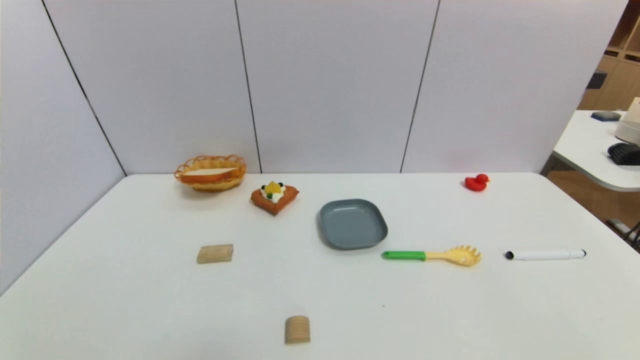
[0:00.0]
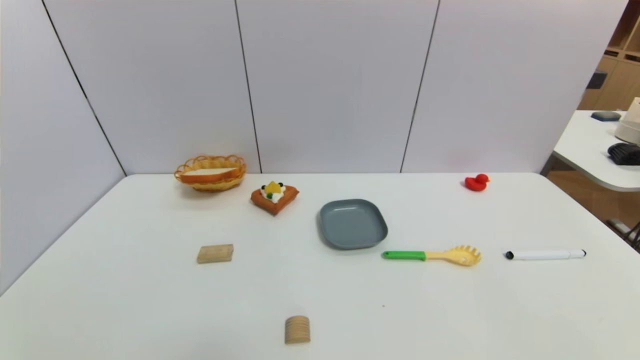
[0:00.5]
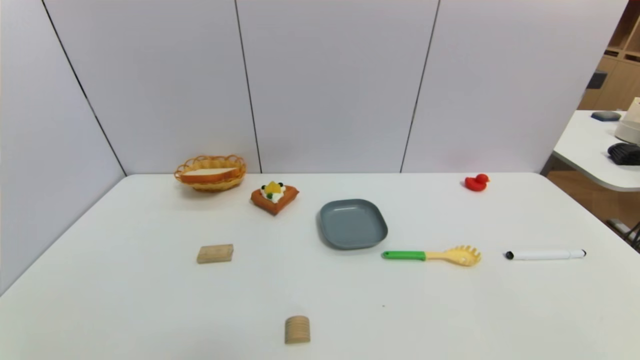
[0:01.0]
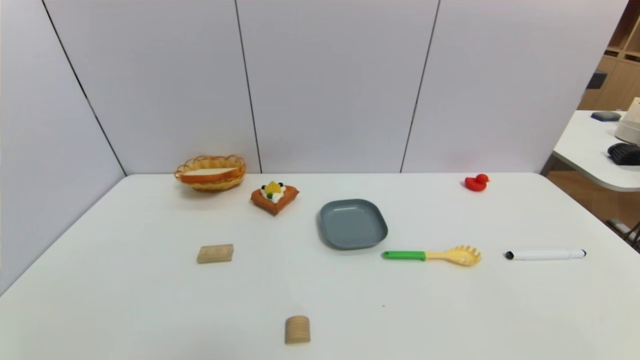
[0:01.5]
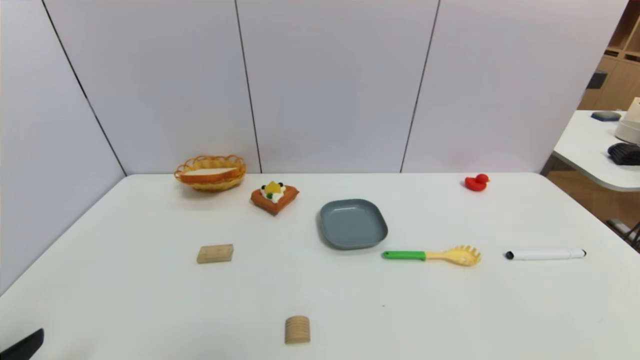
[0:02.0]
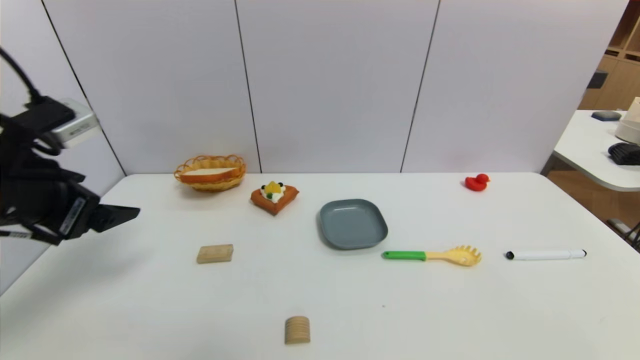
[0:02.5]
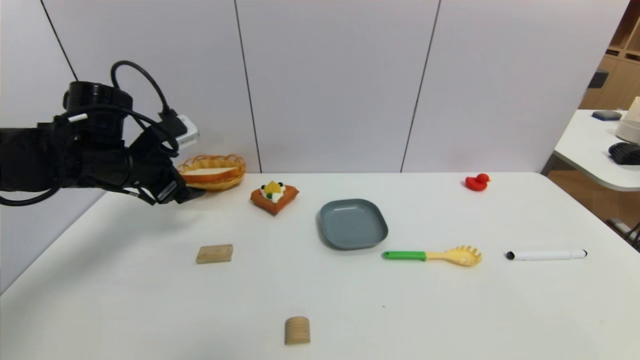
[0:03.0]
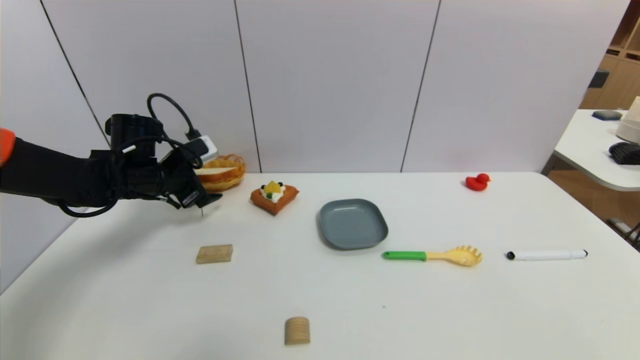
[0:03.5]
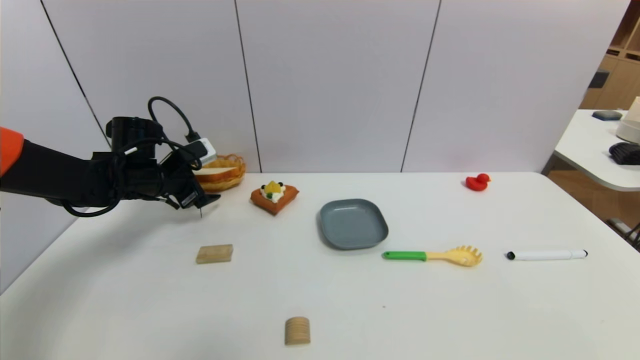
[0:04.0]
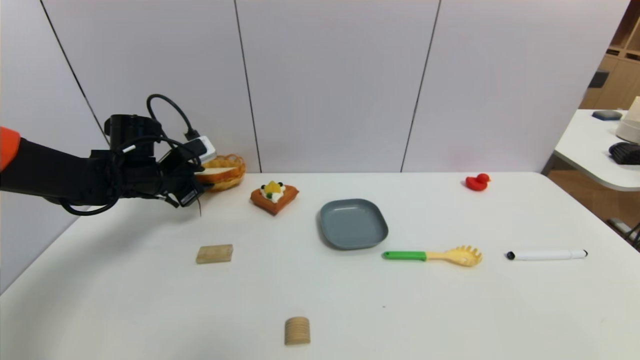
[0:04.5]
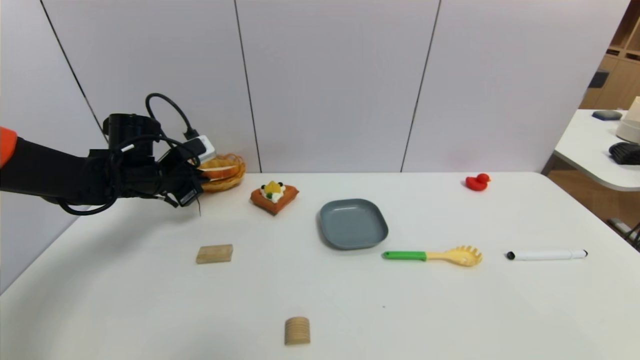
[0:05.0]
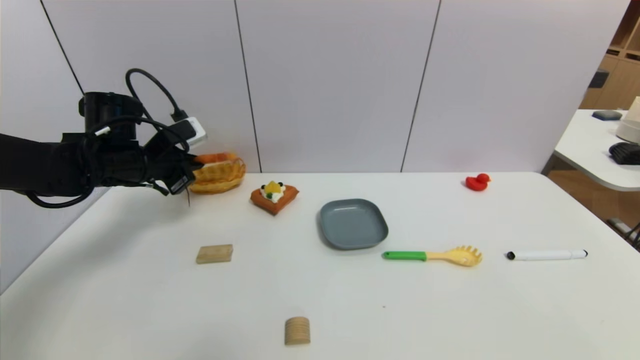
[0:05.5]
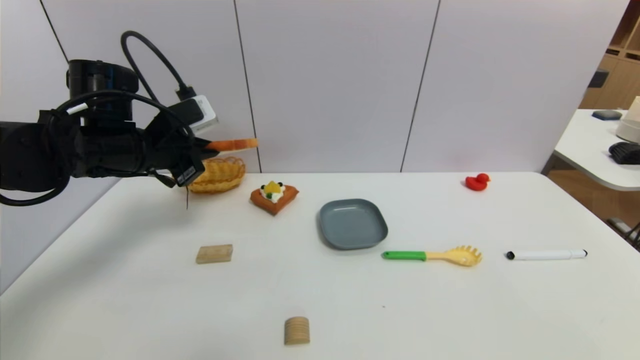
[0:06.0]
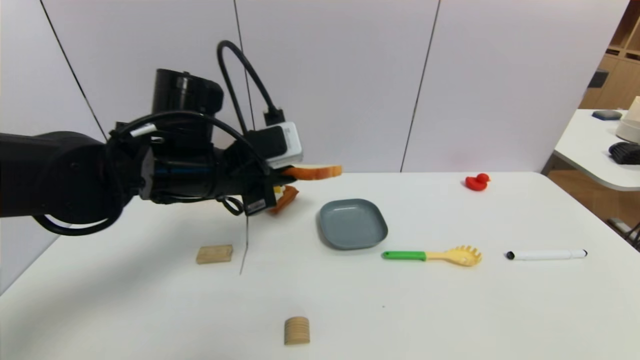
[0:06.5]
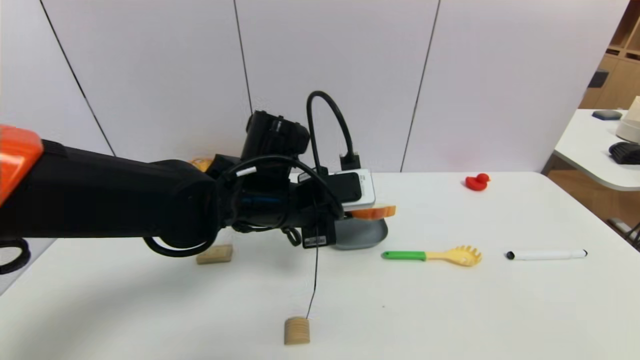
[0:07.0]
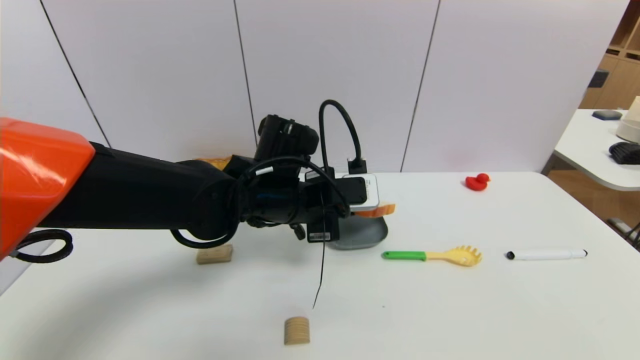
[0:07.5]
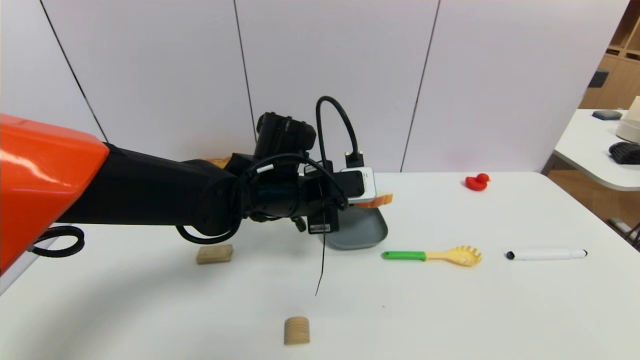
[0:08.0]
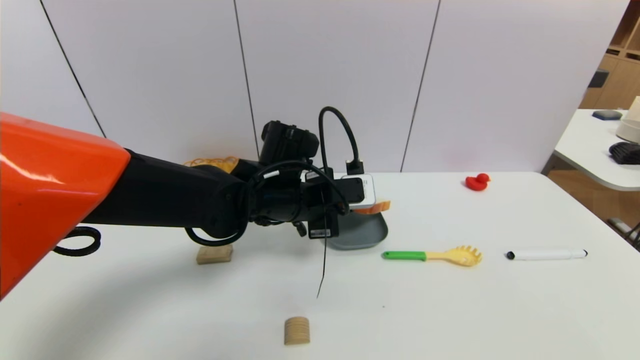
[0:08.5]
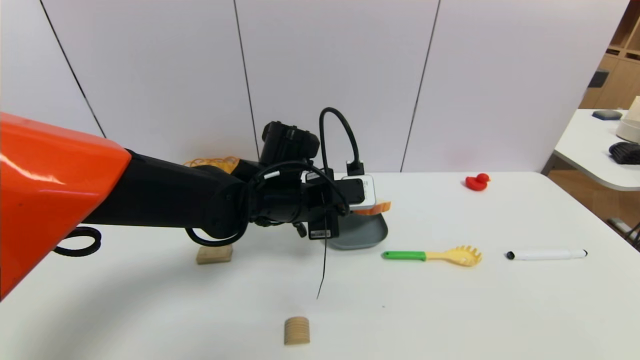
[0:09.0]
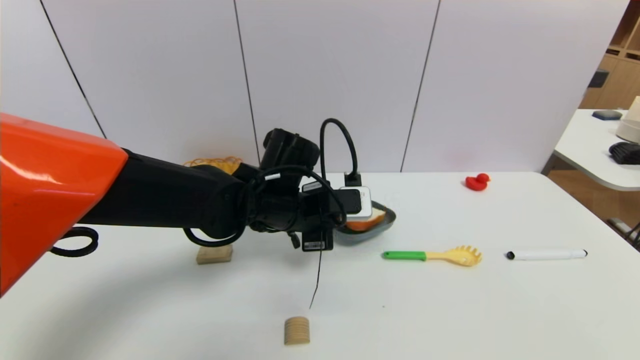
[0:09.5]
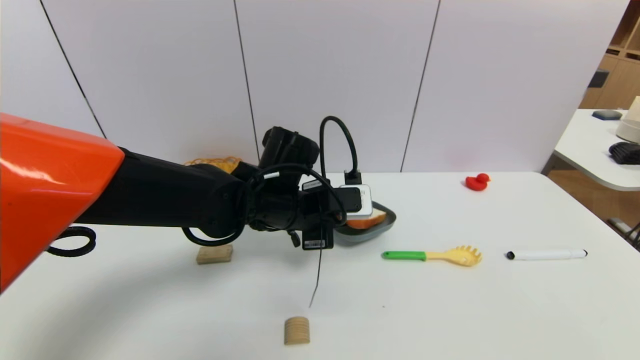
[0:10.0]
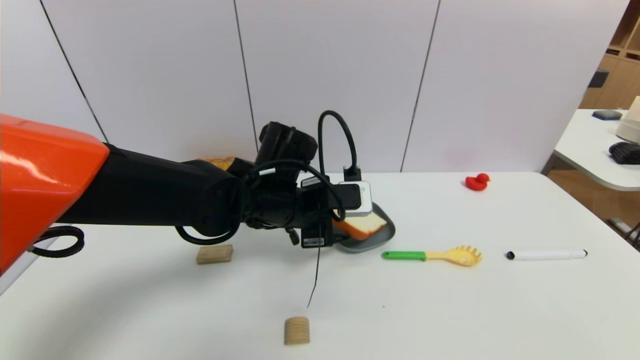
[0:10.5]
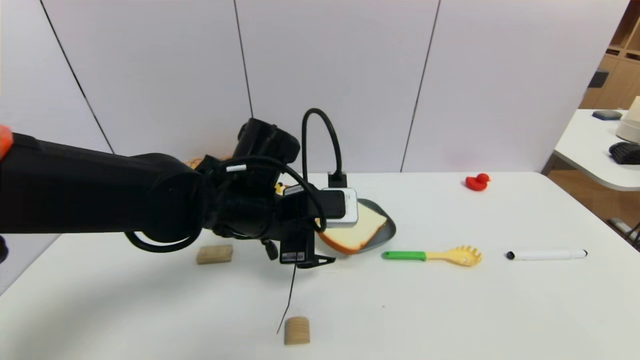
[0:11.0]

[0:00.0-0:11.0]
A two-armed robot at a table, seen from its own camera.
Task of the whole recording: use a gripper to pick the target object and place on the dish.
Step, 0:00.0 to 0:04.5: Grasp the bread slice with the left gripper.
0:02.0 to 0:03.5: The left gripper shifts approximately 35 cm forward.
0:03.5 to 0:05.5: The left gripper closes up.
0:05.5 to 0:07.5: The left gripper goes about 25 cm to the right.
0:07.5 to 0:09.0: The grippers move only a little.
0:09.0 to 0:11.0: The left gripper changes place by approximately 5 cm, and opens.

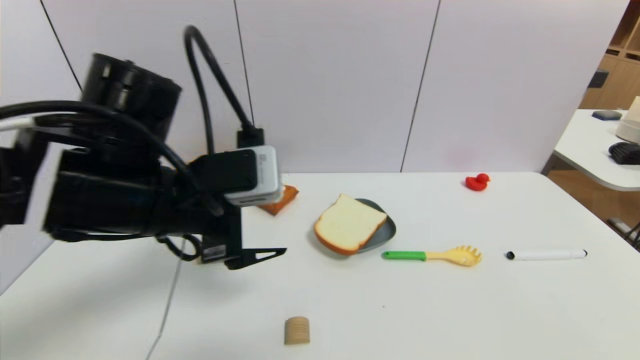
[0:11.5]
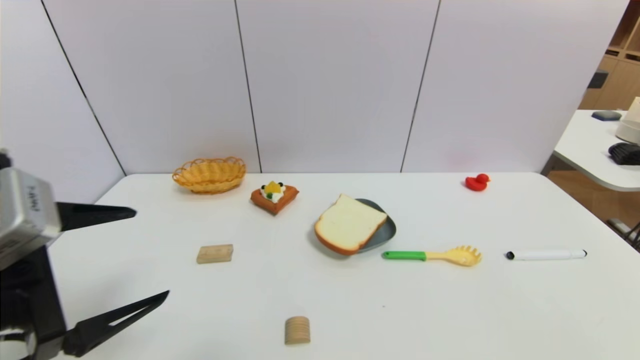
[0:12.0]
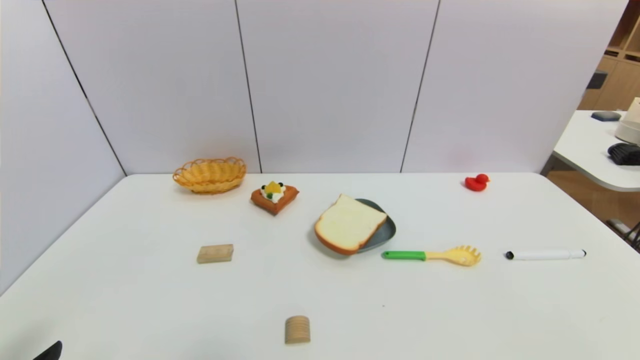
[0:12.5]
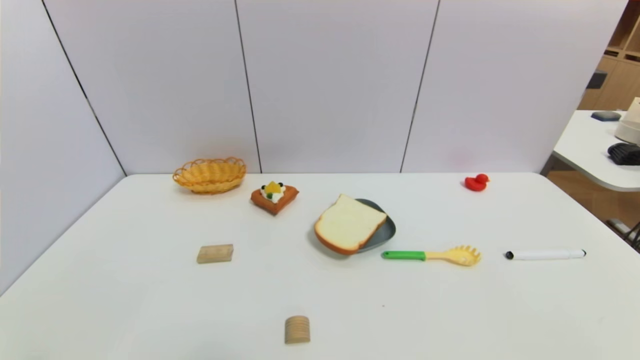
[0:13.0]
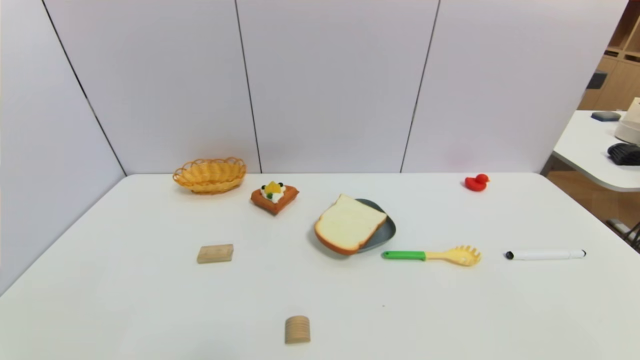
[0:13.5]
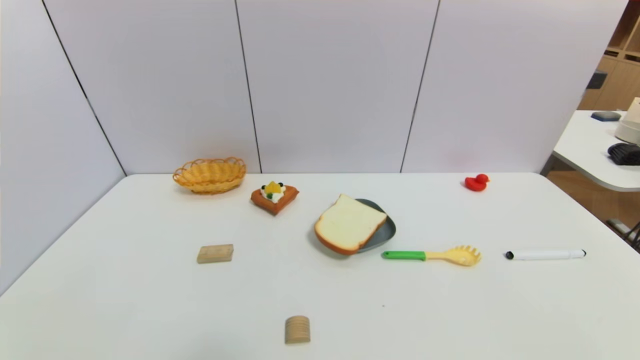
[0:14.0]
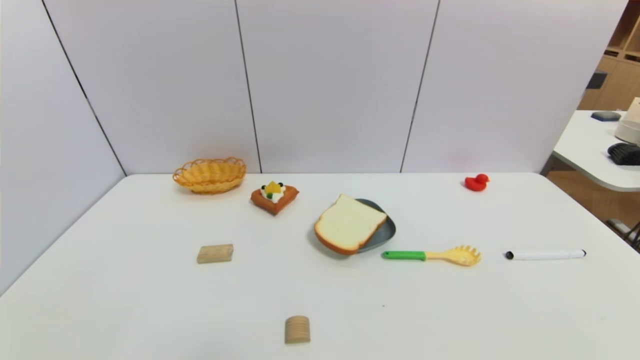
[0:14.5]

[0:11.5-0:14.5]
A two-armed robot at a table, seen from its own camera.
Task of the whole recording: use a gripper to pick the target object and place on the dish.
0:11.5 to 0:13.0: The left gripper goes roughly 30 cm backward, downward and to the left.
